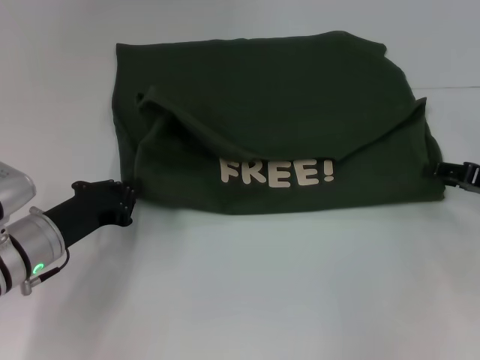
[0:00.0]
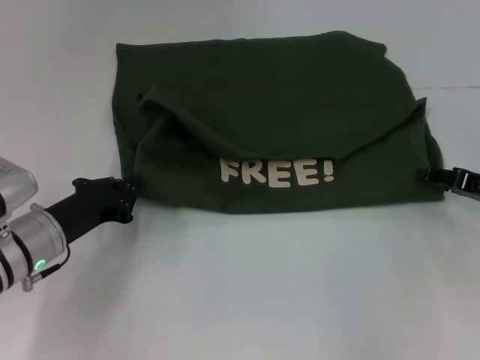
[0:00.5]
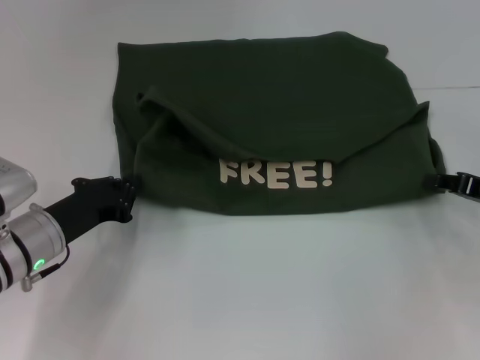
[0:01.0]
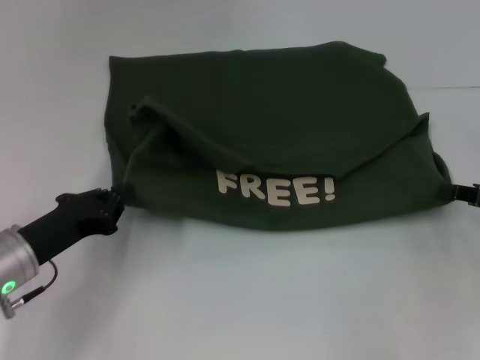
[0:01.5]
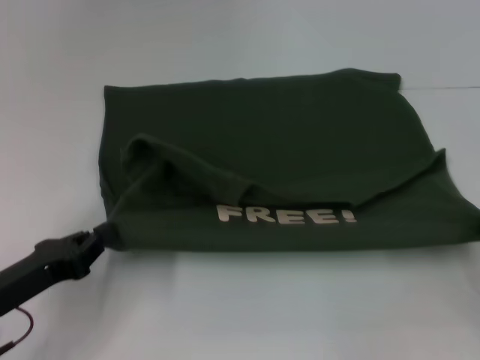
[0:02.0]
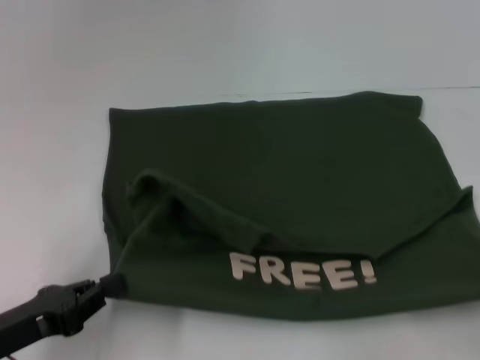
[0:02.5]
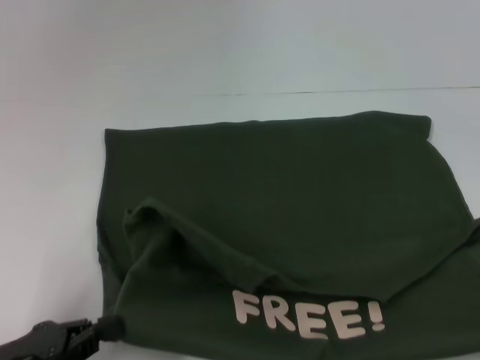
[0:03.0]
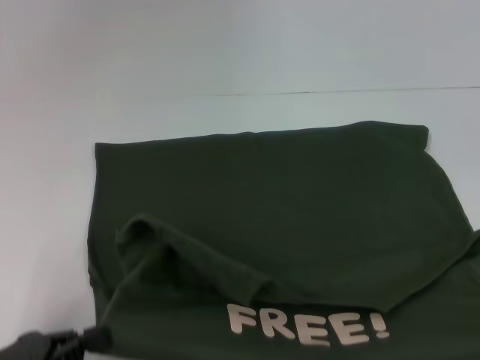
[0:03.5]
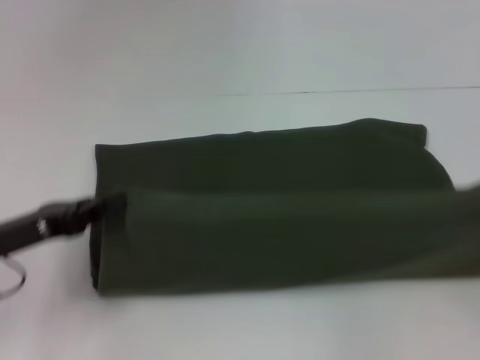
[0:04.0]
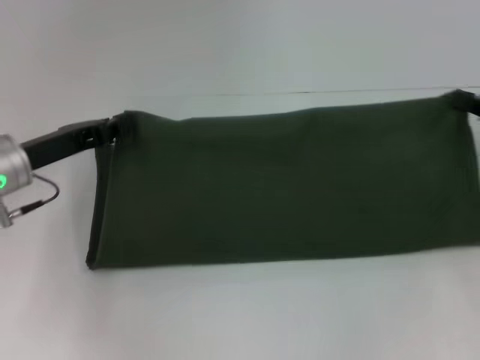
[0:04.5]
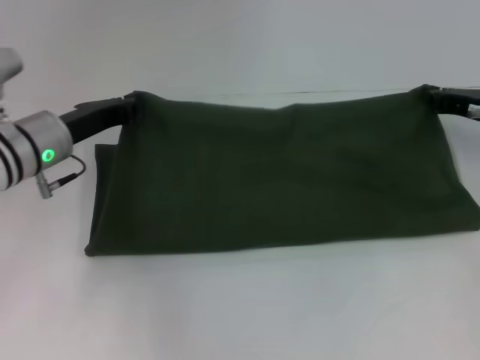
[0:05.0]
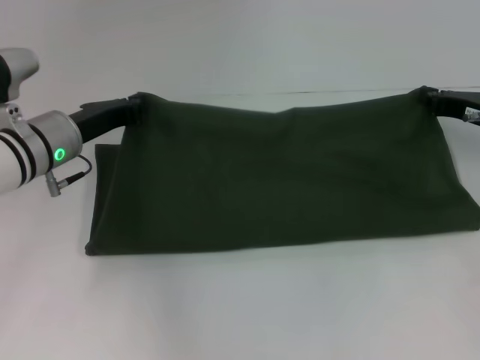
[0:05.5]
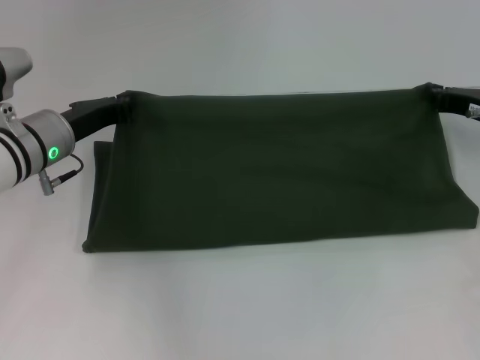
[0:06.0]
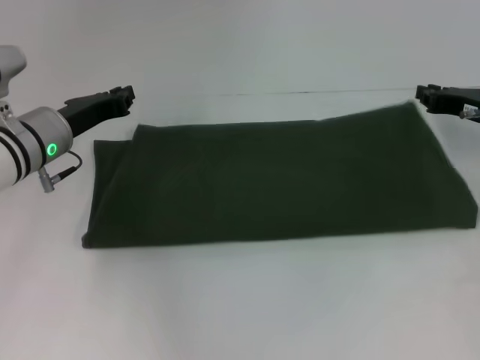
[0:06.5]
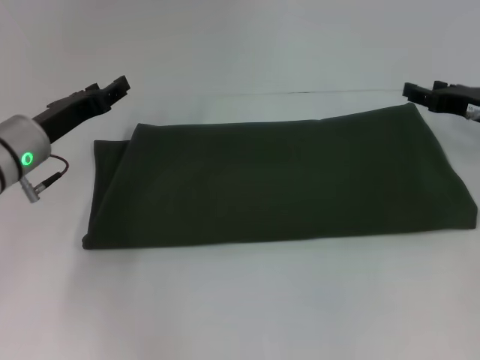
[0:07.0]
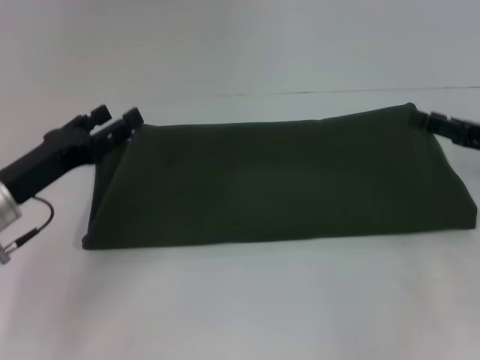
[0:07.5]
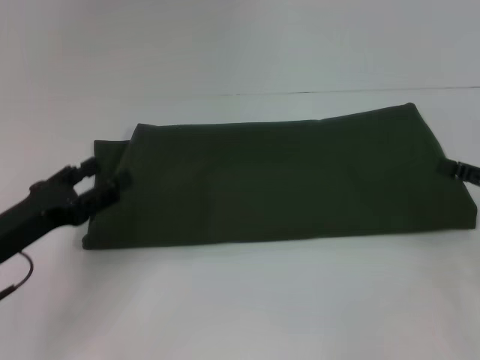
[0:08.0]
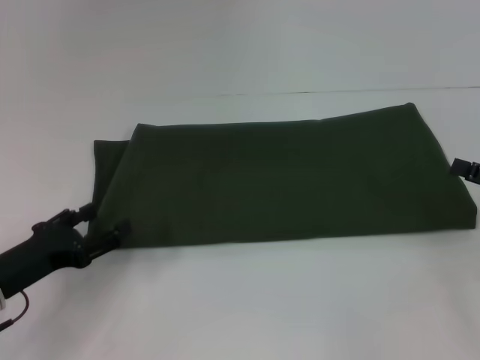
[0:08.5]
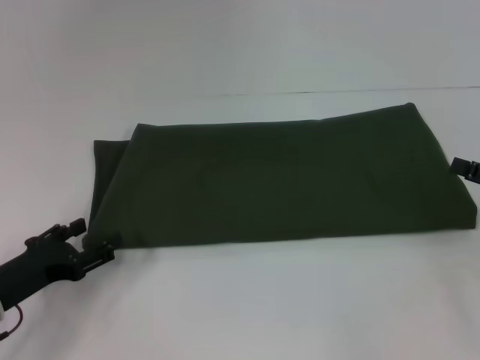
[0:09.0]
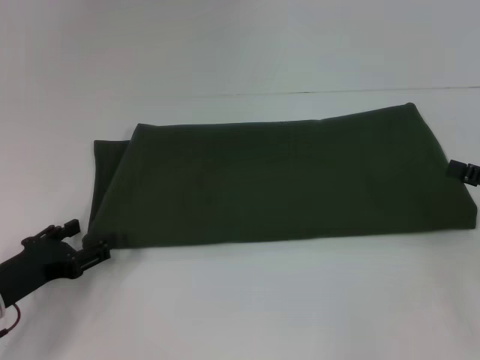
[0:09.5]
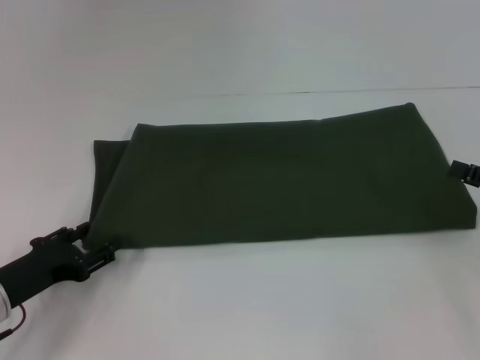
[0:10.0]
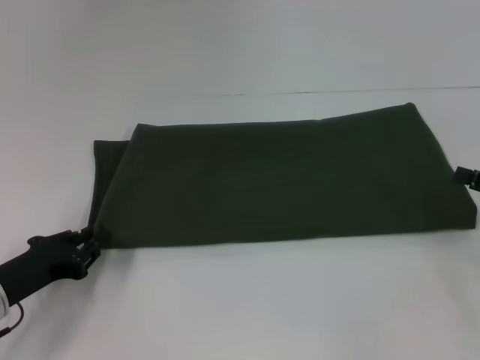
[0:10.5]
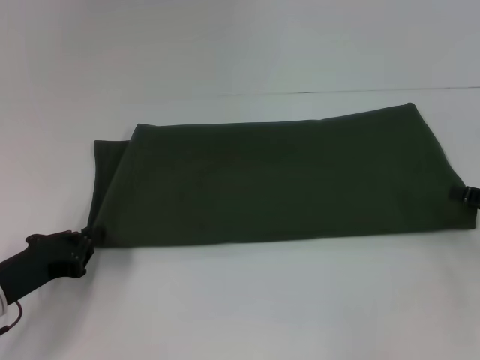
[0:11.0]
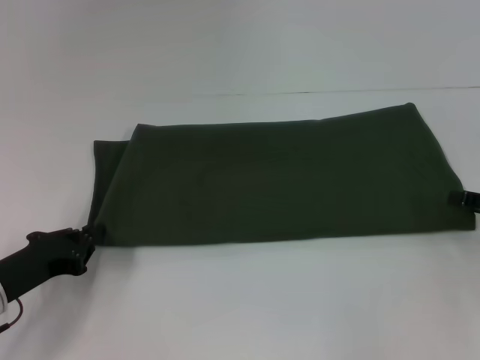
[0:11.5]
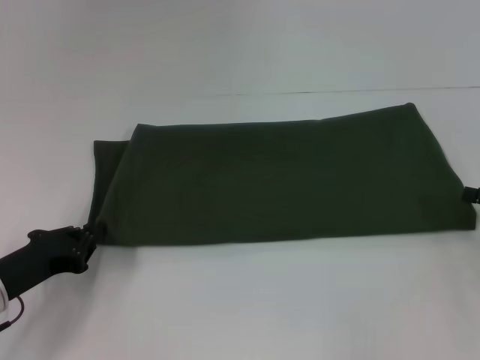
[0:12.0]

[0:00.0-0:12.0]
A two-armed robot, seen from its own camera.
Step, 0:00.0 to 0:03.0: Pull the clothes with your left hand.
Step, 0:00.0 to 0:03.0: Pull the clothes with your right hand.
Step, 0:03.5 to 0:06.5: Fold the clothes with your right hand.
0:00.0 to 0:02.0: Both grippers travel together backward, some 10 cm. The right gripper closes its fingers.
0:02.0 to 0:04.0: The right gripper travels backward and back again, approximately 10 cm each way. The left gripper reaches approximately 5 cm backward, then returns.
0:04.0 to 0:06.0: The right gripper goes about 20 cm forward and to the left, while the left gripper goes about 15 cm forward and to the right.
0:06.0 to 0:08.0: The left gripper travels backward and to the left by roughly 15 cm, and opens up. Meanwhile the right gripper shifts about 10 cm backward, and opens its fingers.
0:08.0 to 0:10.0: The left gripper moves some 5 cm.
0:10.0 to 0:12.0: The left gripper closes up.

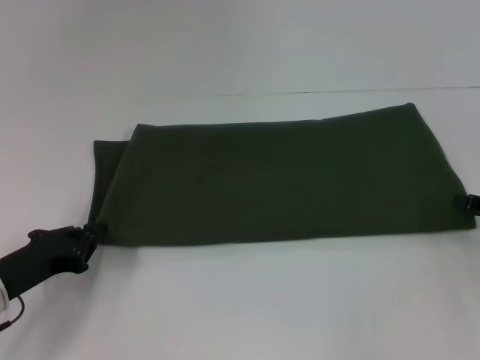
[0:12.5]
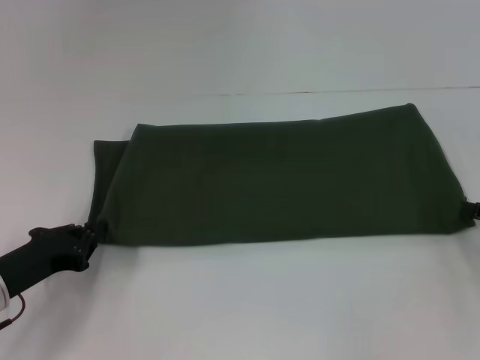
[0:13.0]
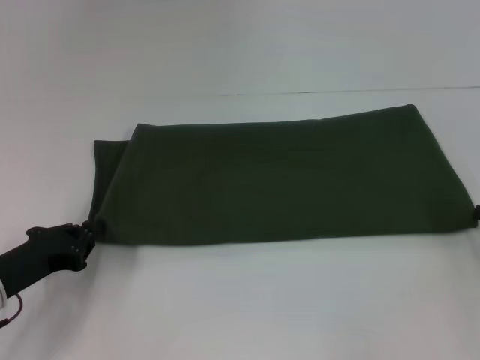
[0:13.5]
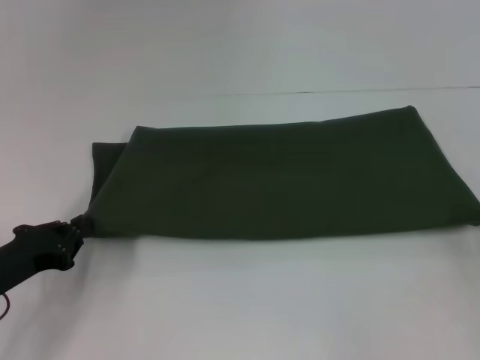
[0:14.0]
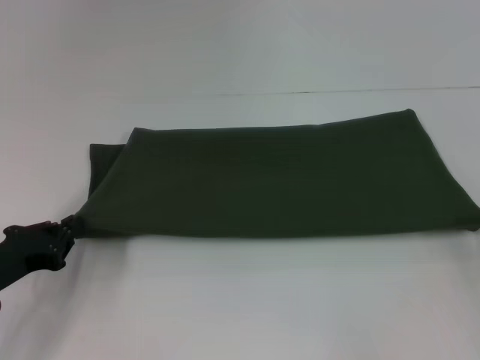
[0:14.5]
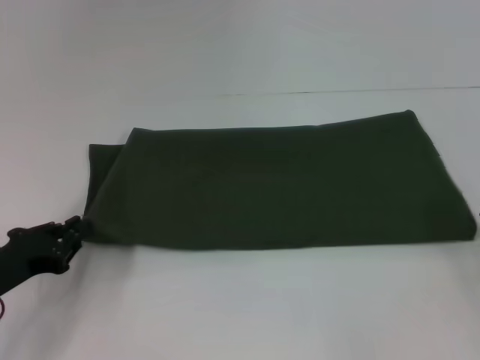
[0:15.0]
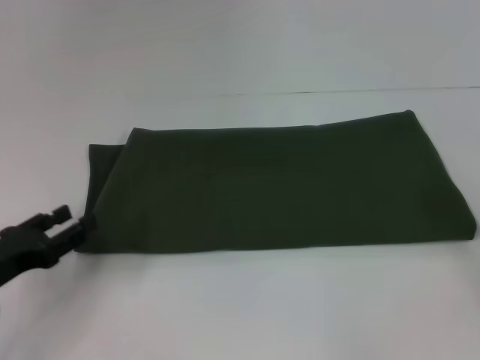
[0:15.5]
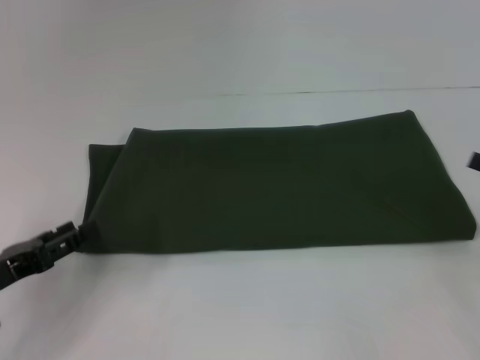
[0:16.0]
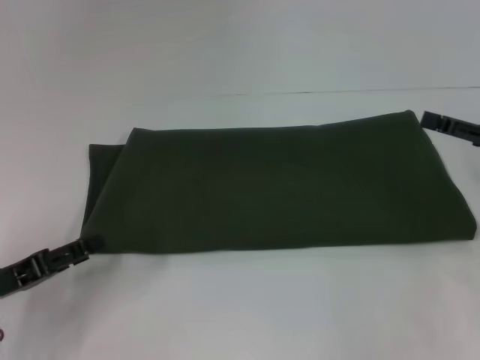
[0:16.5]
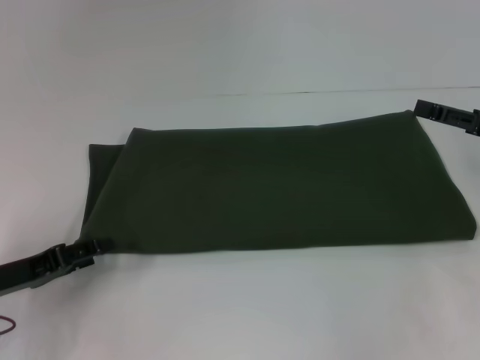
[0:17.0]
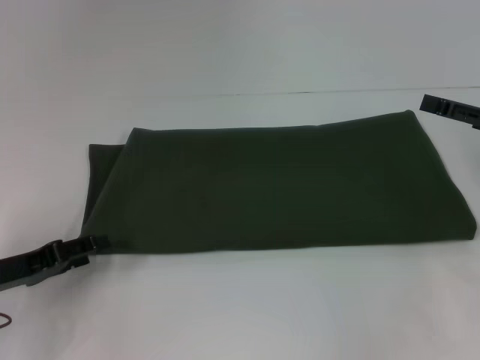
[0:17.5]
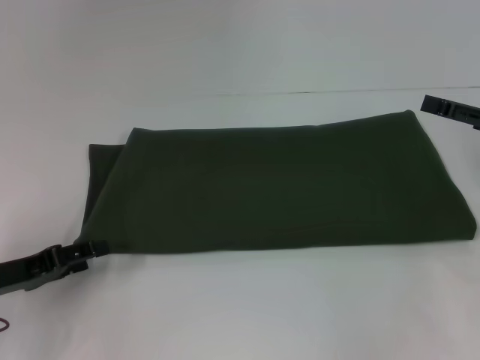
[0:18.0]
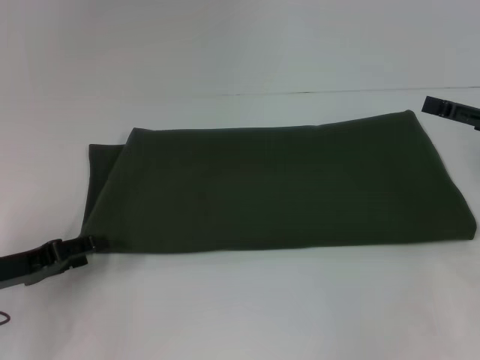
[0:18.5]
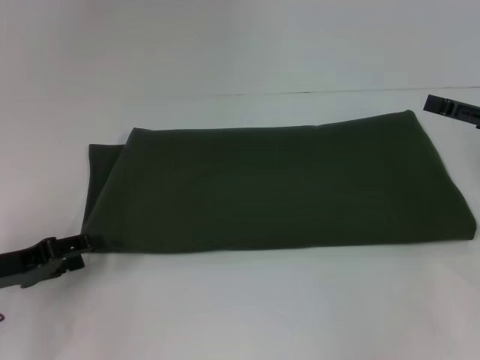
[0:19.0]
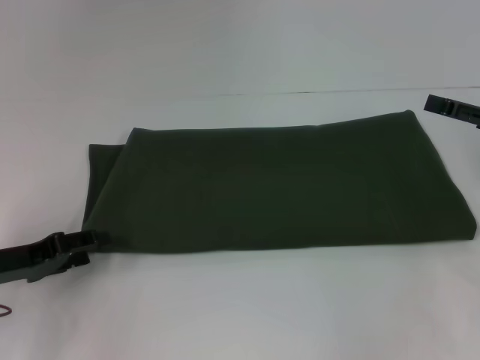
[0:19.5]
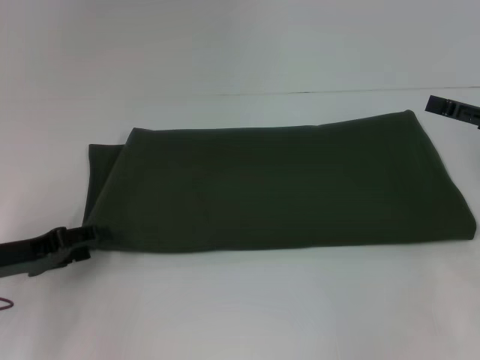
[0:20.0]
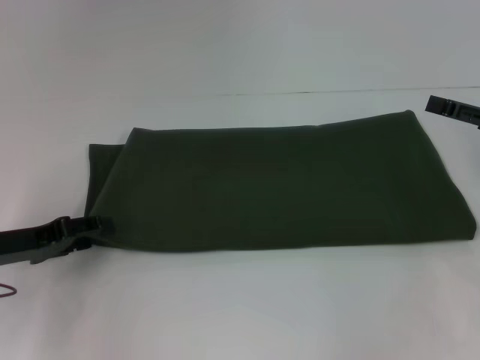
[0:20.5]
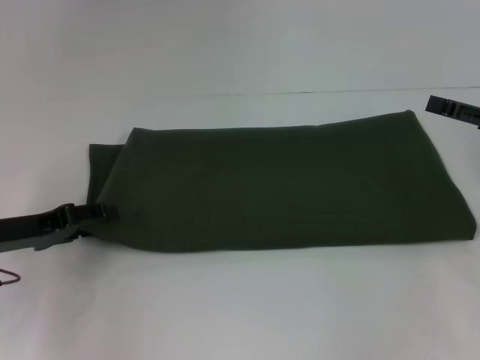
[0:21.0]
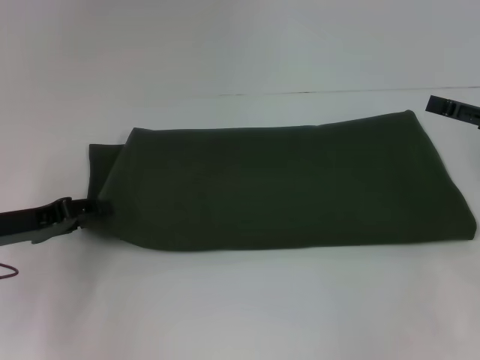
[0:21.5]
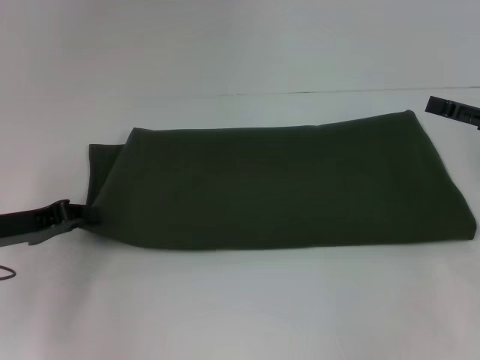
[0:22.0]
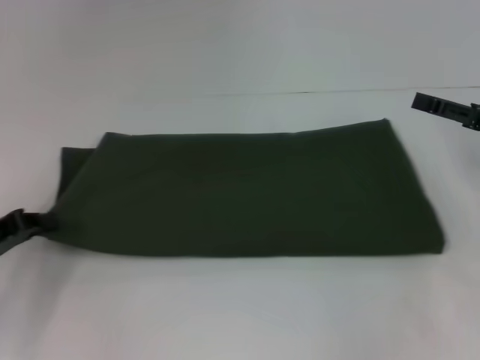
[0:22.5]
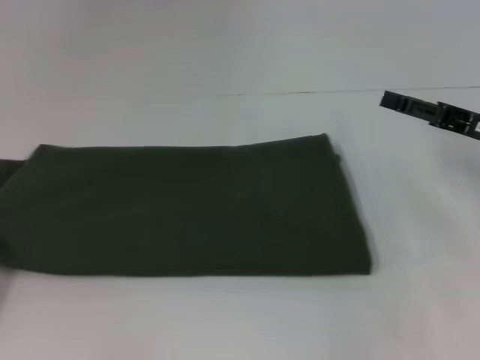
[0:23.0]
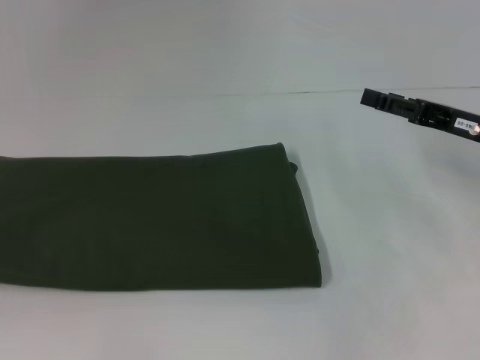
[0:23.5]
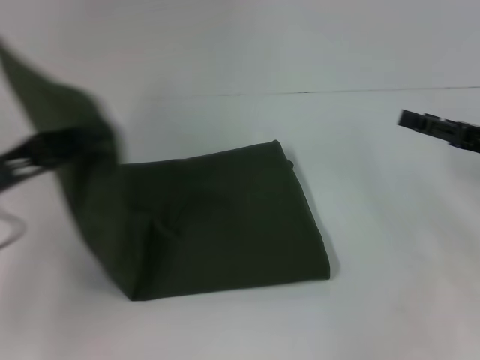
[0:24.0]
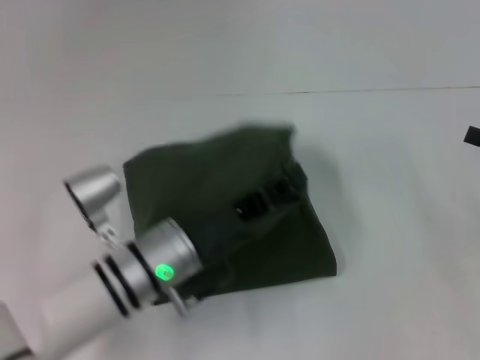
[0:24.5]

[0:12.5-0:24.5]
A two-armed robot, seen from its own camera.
0:12.5 to 0:14.5: The right gripper closes its fingers.
0:14.5 to 0:16.5: The right gripper is displaced upward and forward by about 10 cm, and opens up, while the left gripper opens its fingers.
0:16.5 to 0:18.5: The grippers move only a little.
0:18.5 to 0:20.5: The grippers make only small movements.
0:20.5 to 0:22.5: The left gripper closes up.
0:22.5 to 0:24.5: The left gripper moves to the right, approximately 25 cm; the right gripper shifts by about 5 cm.

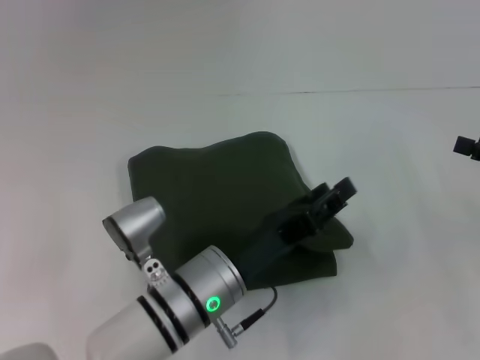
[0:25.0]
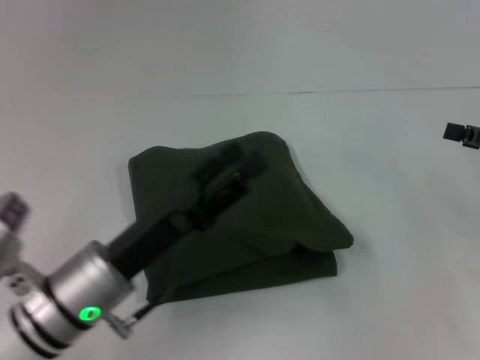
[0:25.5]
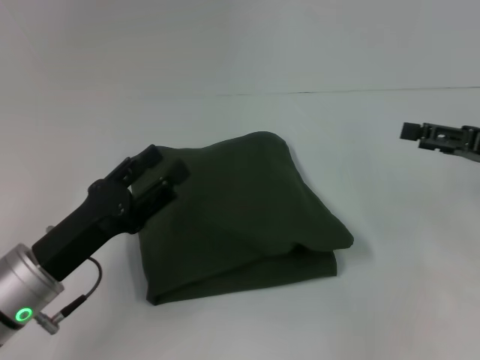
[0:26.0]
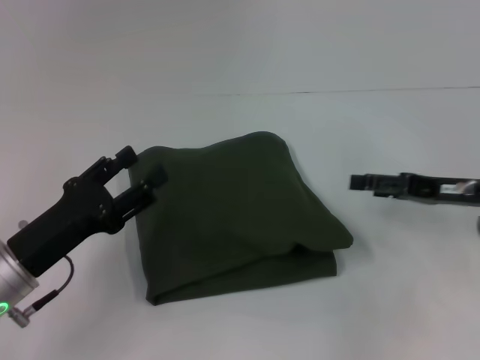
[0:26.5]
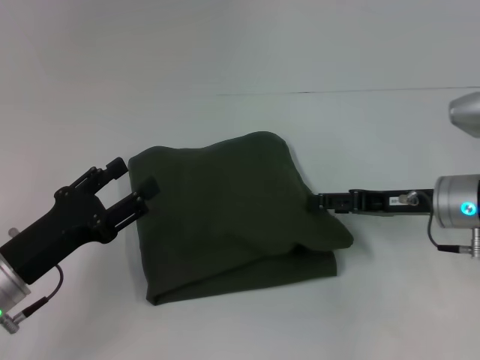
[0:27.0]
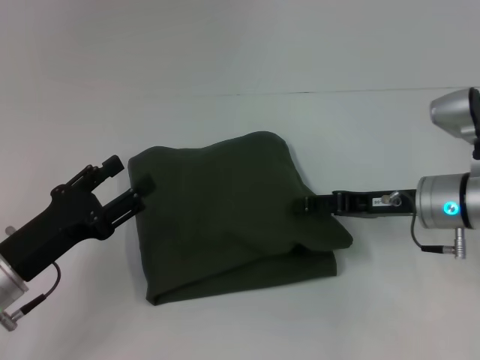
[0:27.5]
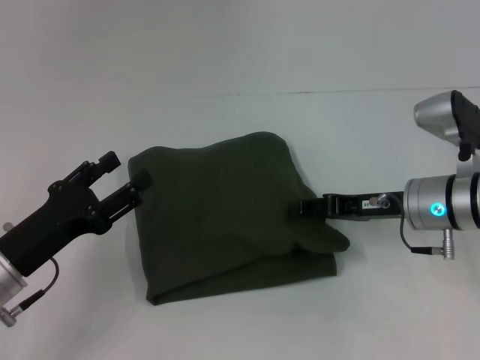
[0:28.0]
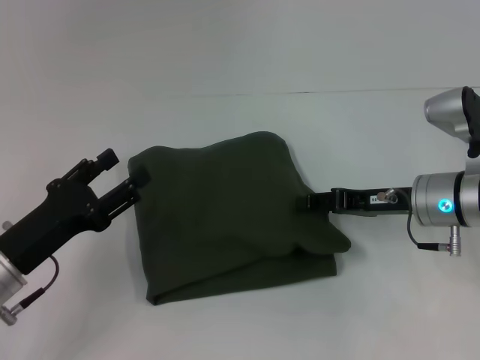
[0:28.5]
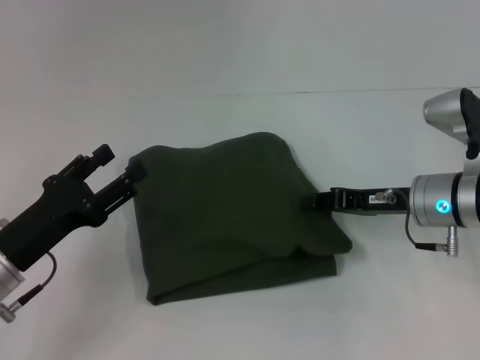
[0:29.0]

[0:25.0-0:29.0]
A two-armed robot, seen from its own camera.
0:25.0 to 0:27.0: Both grippers move to the left, about 15 cm. The left gripper opens its fingers.
0:27.0 to 0:29.0: The right gripper closes.
